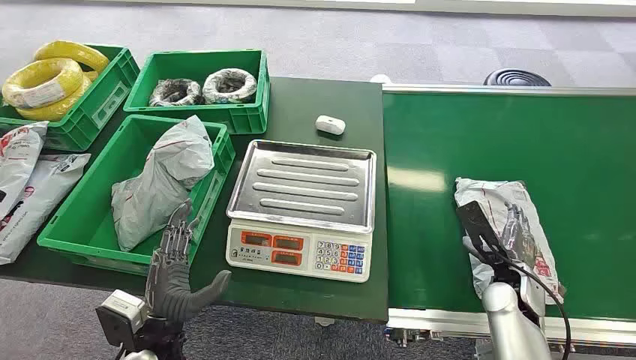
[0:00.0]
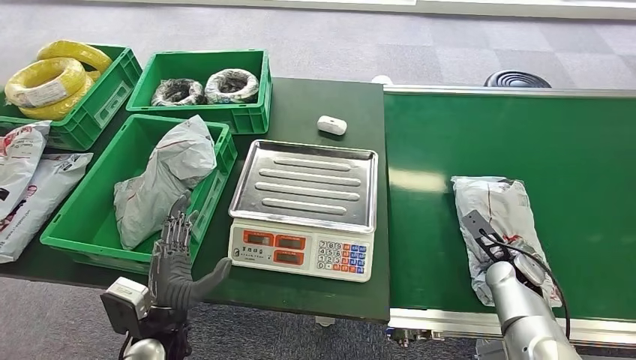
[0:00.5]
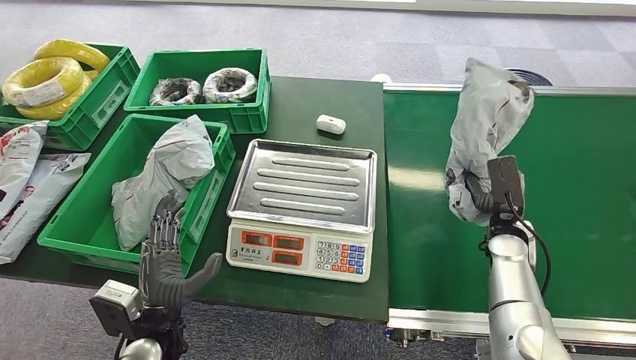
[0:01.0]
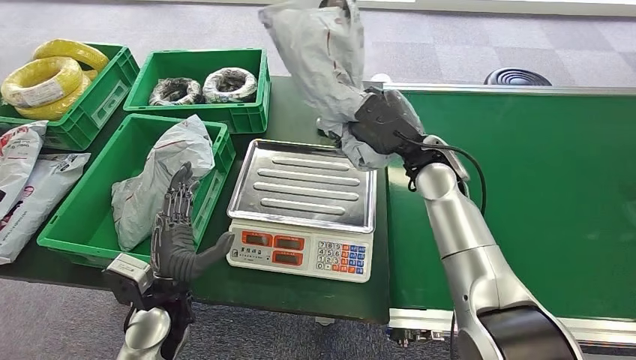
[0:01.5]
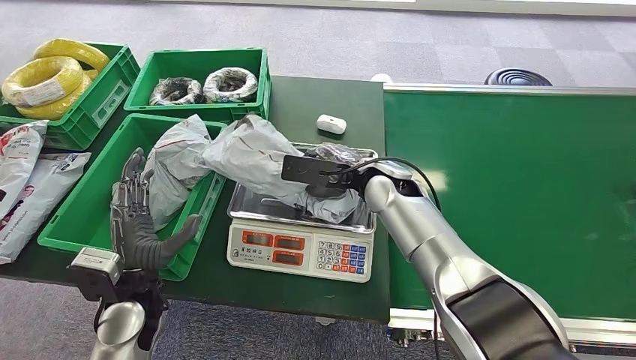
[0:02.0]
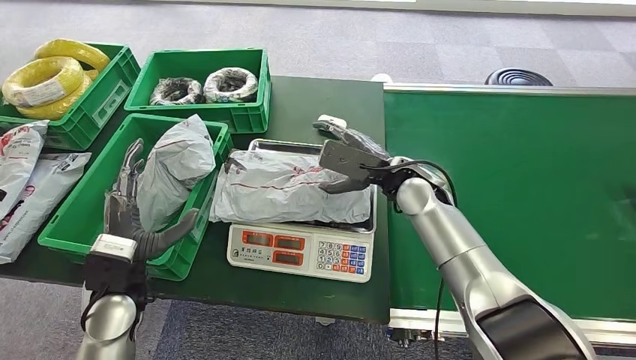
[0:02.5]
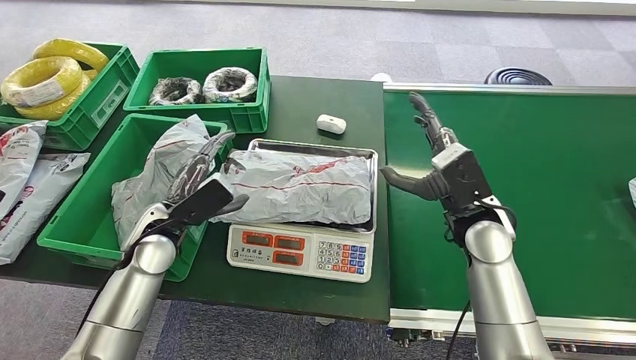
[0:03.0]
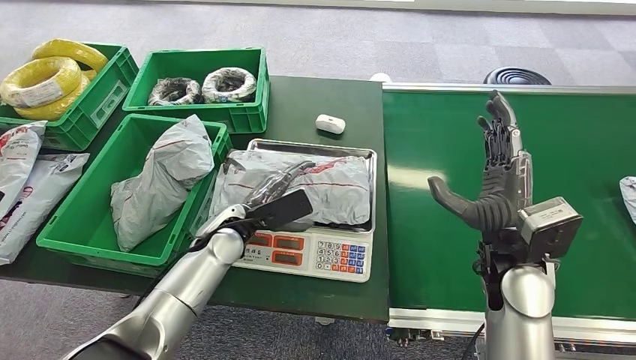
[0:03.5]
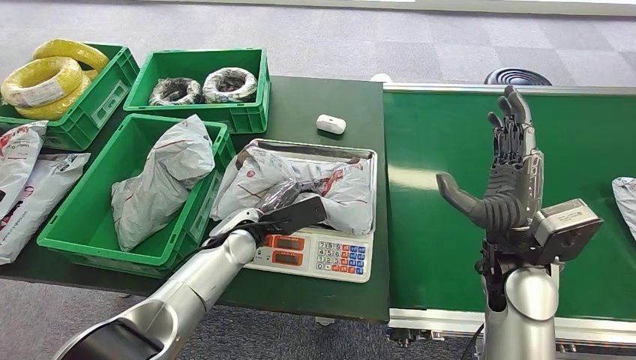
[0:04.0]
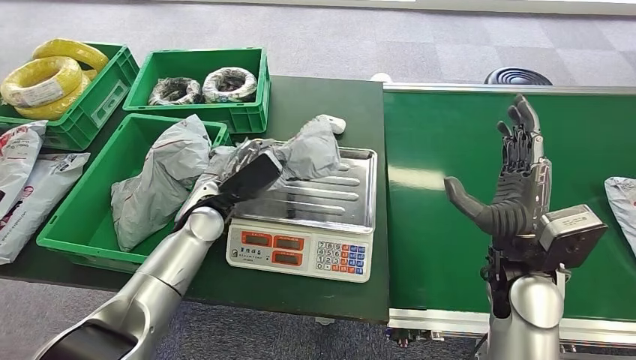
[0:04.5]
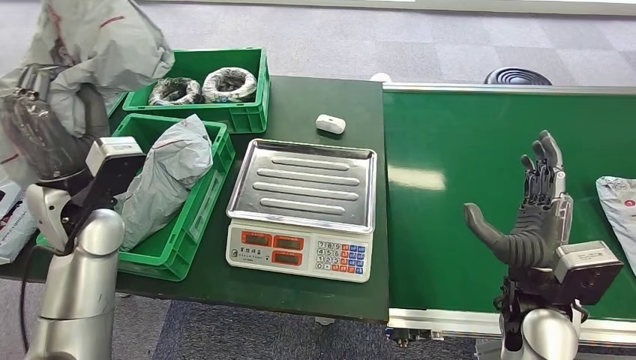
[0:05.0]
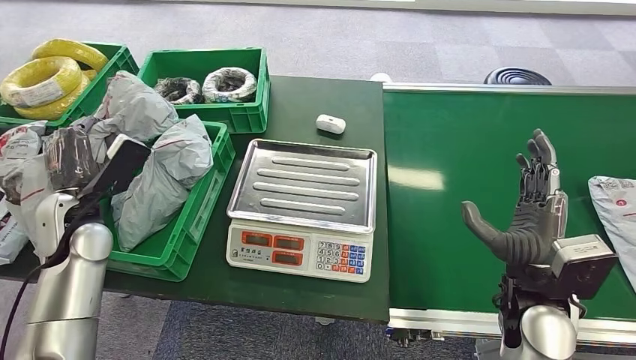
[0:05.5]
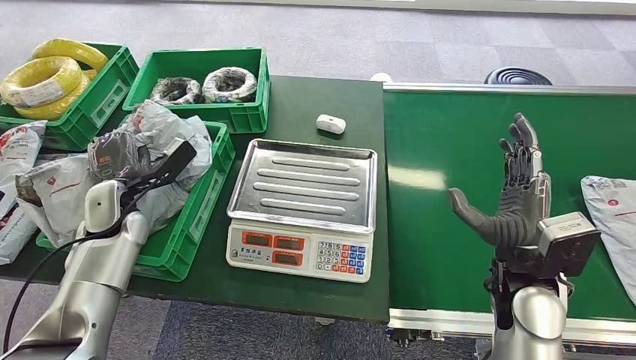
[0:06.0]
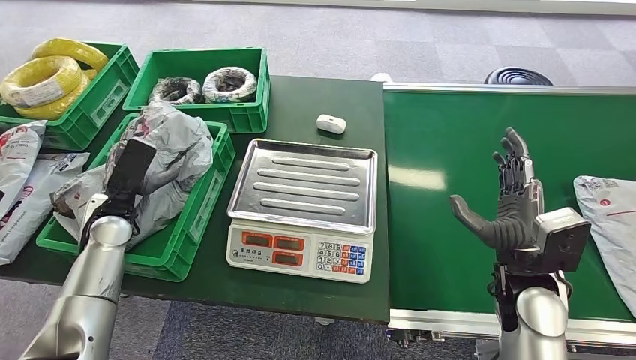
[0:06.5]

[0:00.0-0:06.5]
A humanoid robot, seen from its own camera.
Step, 0:00.0 to 0:00.5: Pick up the package from the conveyor belt.
Step, 0:01.5 to 0:02.0: Place the package onto the inbound machine.
Step, 0:02.5 to 0:04.5: Pick up the package from the inbound machine.
Step, 0:05.0 to 0:06.5: Place the package into the parcel locker.
